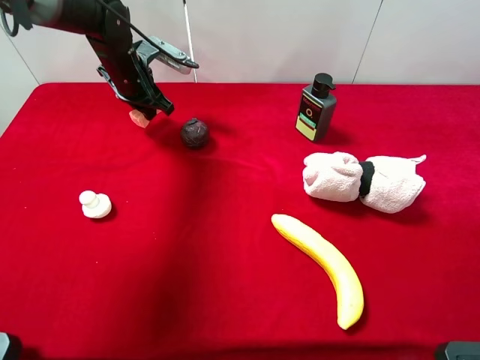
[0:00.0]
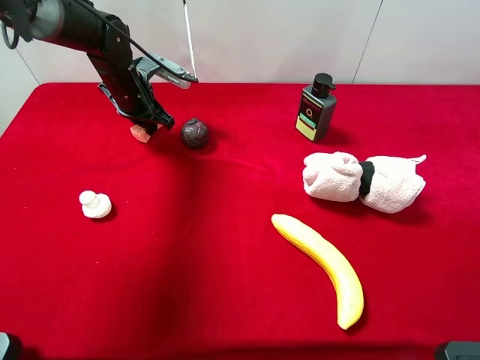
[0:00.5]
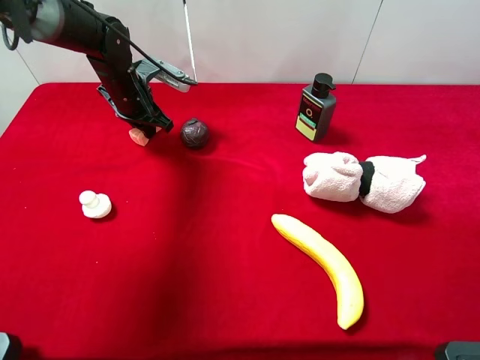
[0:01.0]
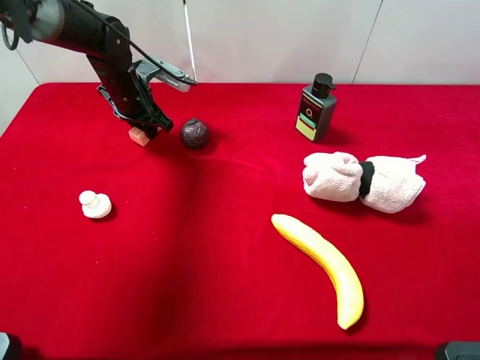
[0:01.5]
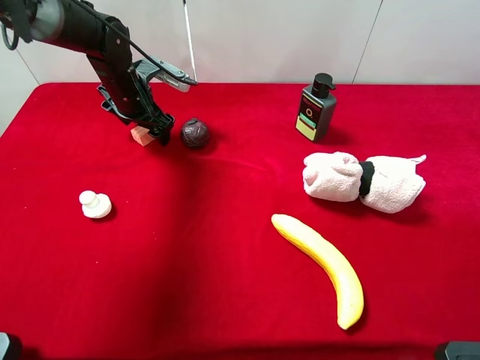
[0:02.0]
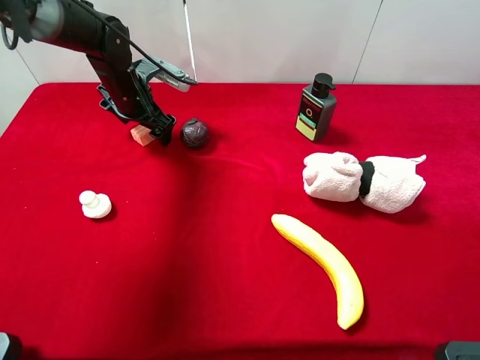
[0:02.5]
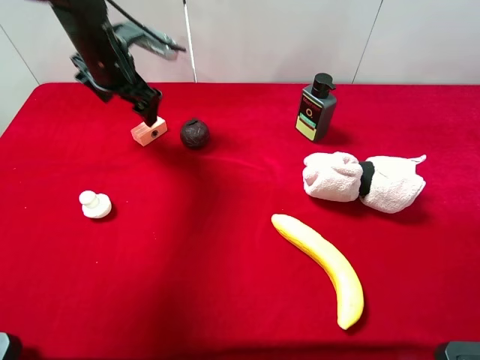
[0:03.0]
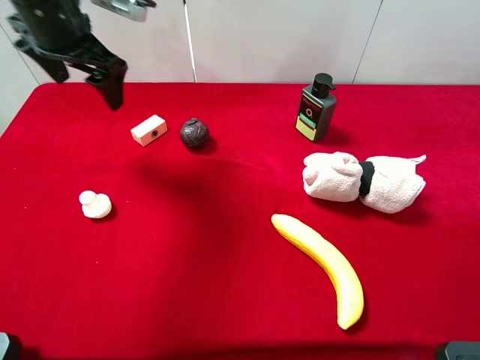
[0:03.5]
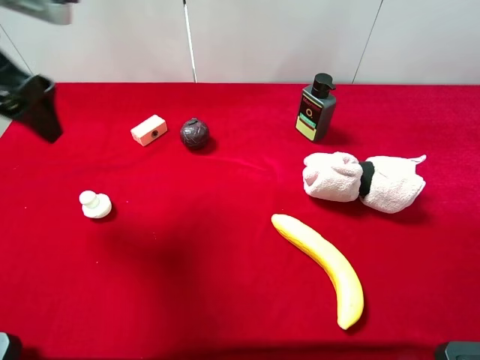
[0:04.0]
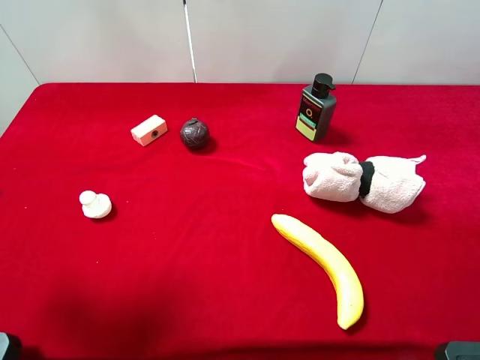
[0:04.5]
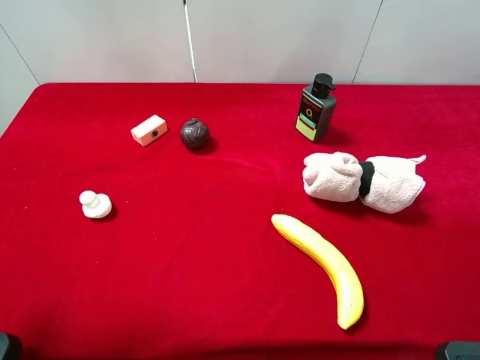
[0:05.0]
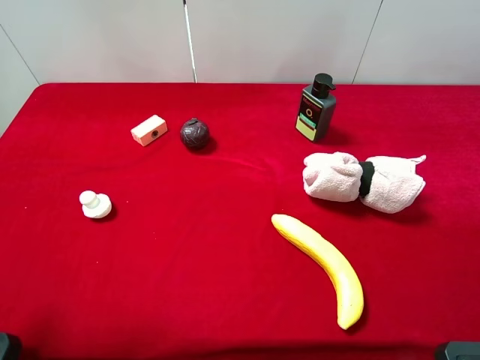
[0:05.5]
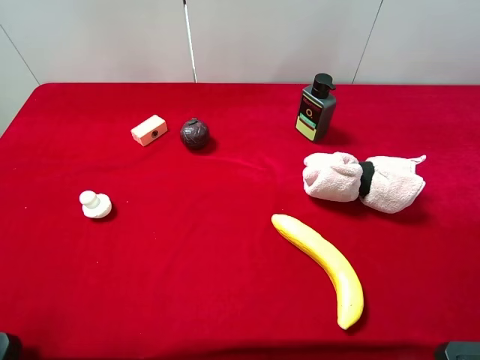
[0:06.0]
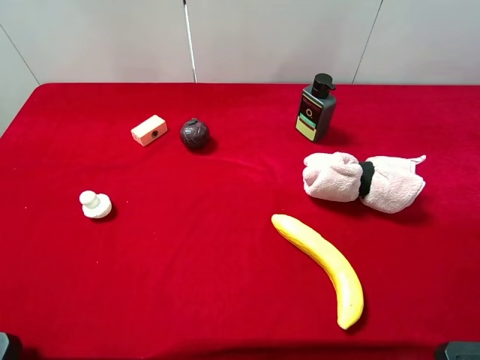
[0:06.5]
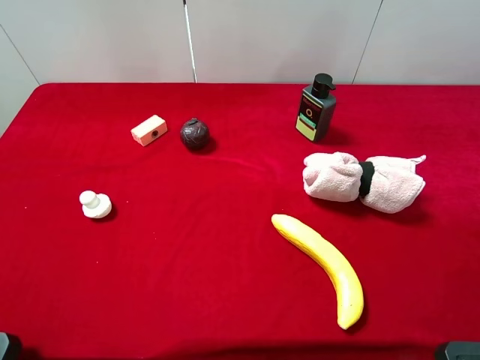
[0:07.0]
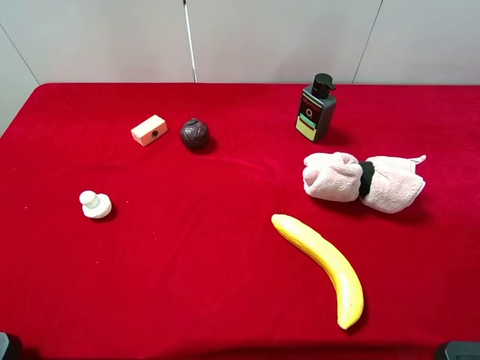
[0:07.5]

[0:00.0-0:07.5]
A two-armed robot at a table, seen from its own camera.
Task of the whole recording: the gripper move the object.
Step, 0:00.0 to 0:03.0: Place the pink cake on the table with the left gripper.
0:00.0 to 0:02.0: The left gripper opens.
0:02.0 to 0:04.0: The left gripper shifts roughly 25 cm upward and backward.
0:04.0 to 0:05.5: The left gripper is displaced backward by some 20 cm.
